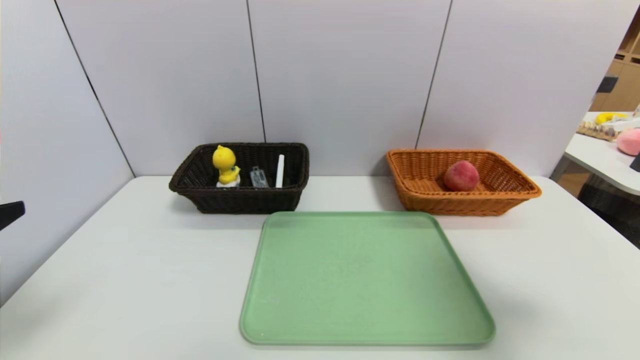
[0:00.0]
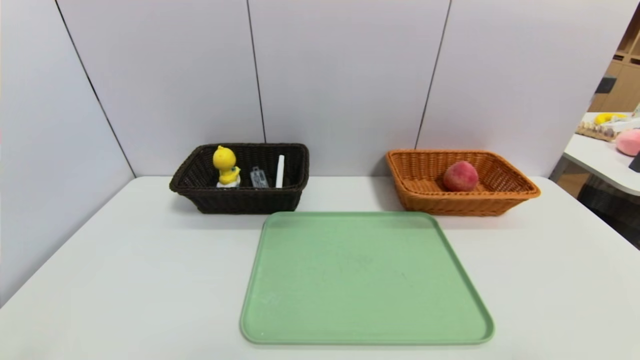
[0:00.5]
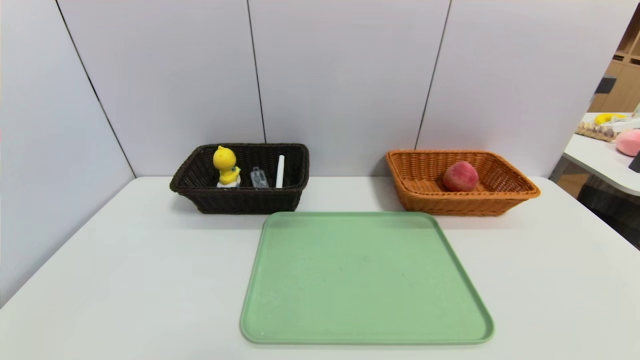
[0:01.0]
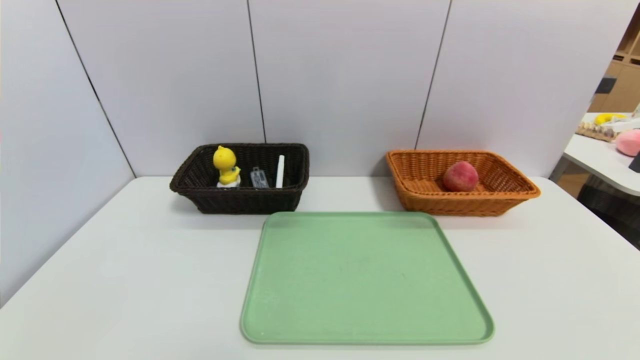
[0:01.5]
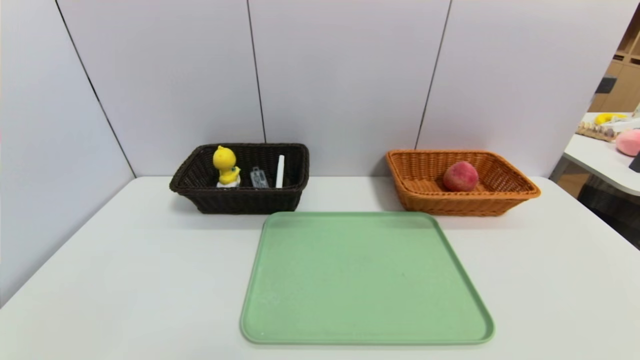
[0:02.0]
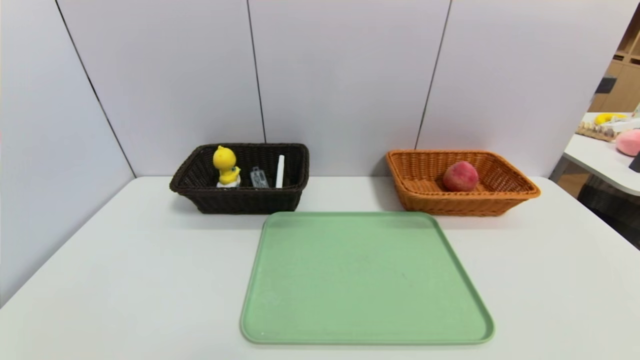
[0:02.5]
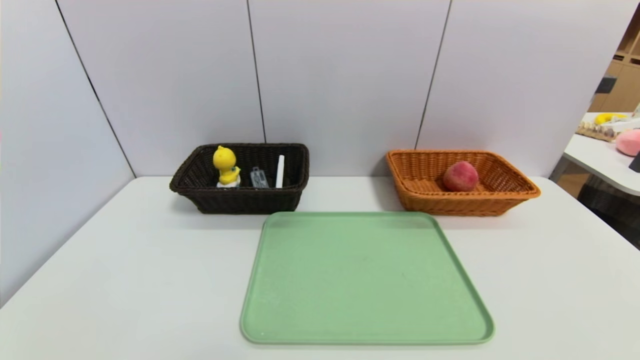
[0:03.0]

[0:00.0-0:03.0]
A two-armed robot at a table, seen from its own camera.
Task of the whole recording: place the food in the right basket with the right gripper, and place the non food items in the left basket with the left gripper.
0:00.0 to 0:01.5: The two grippers go approximately 20 cm downward and backward.

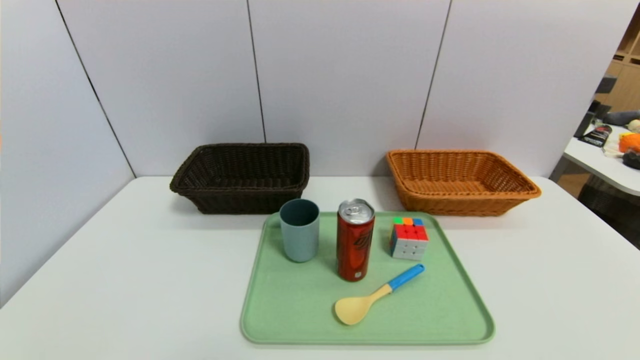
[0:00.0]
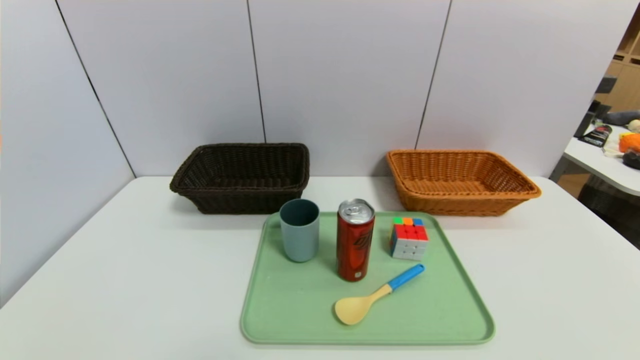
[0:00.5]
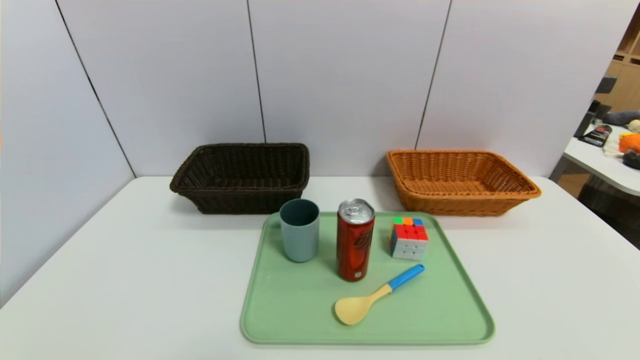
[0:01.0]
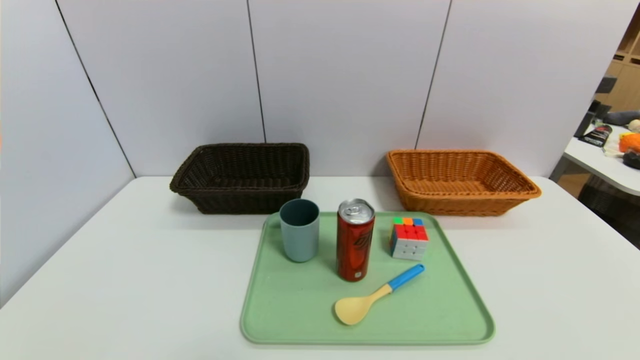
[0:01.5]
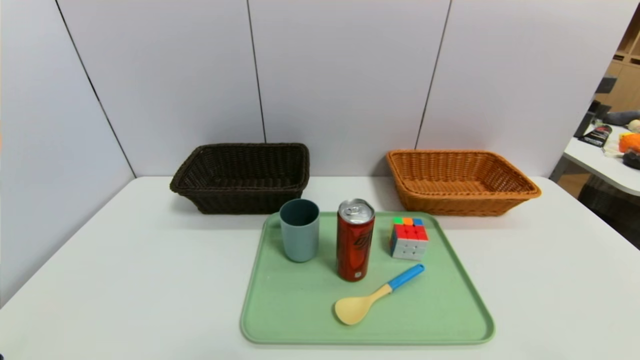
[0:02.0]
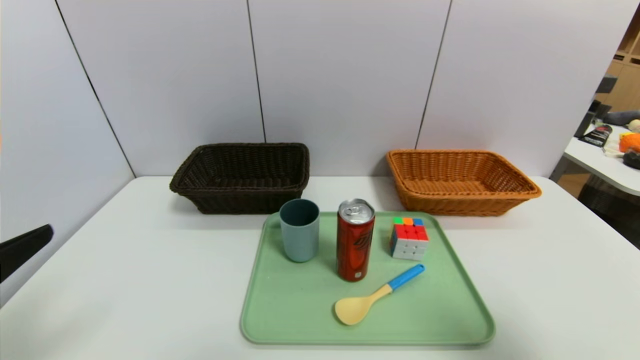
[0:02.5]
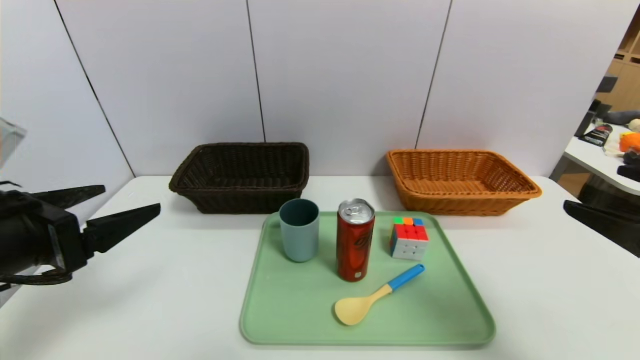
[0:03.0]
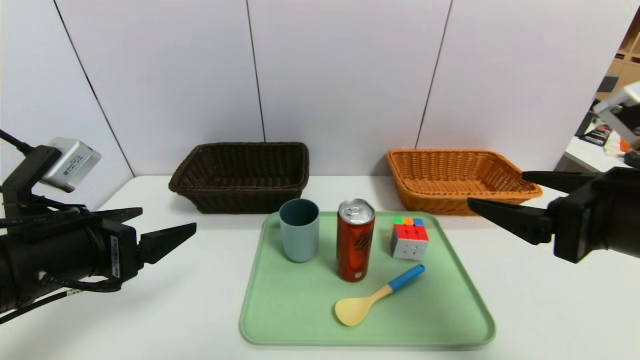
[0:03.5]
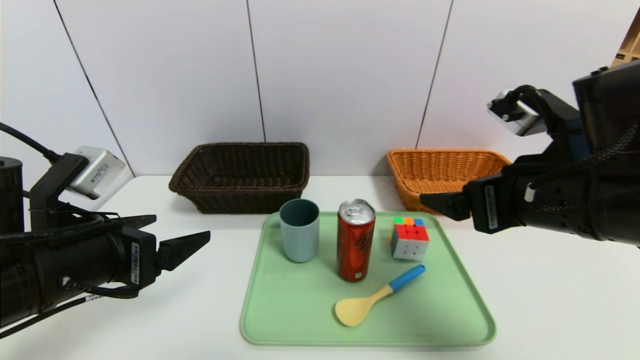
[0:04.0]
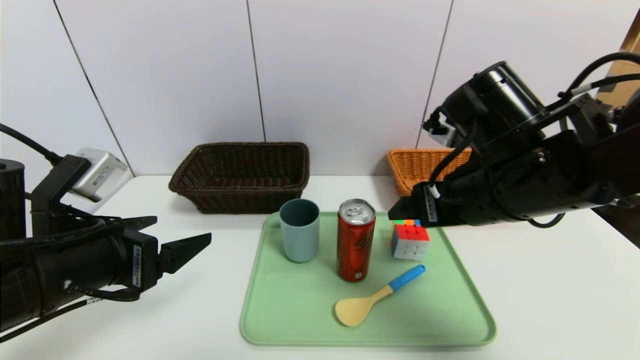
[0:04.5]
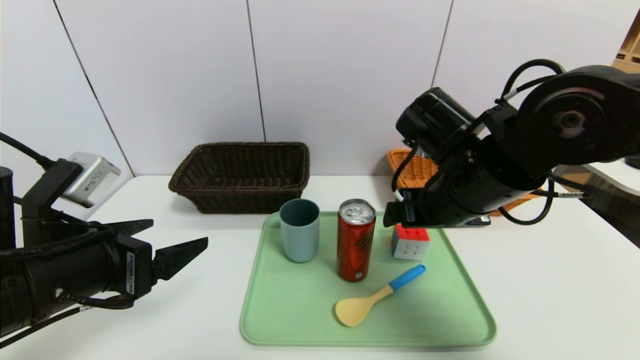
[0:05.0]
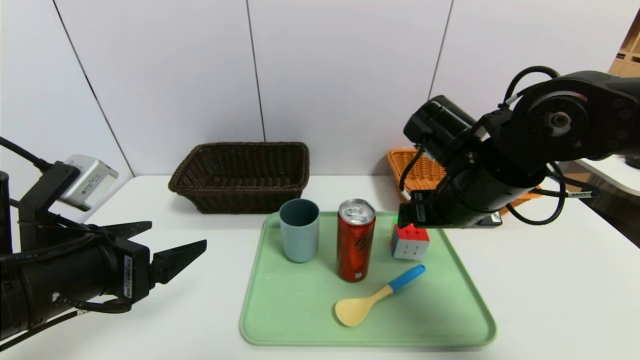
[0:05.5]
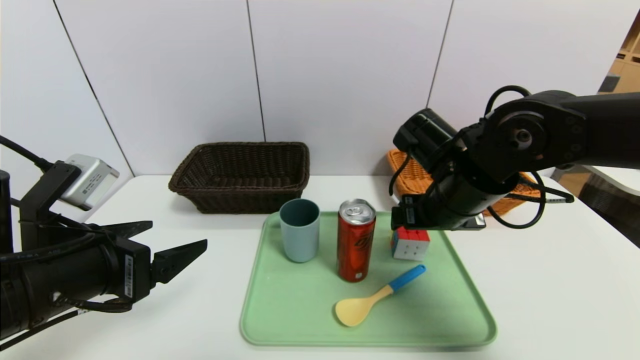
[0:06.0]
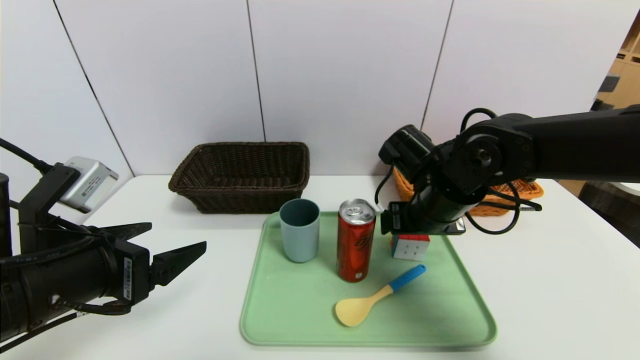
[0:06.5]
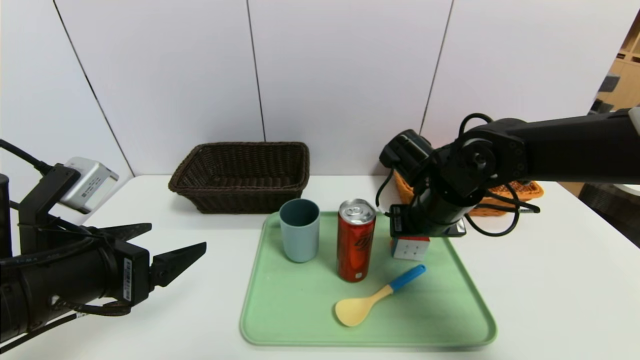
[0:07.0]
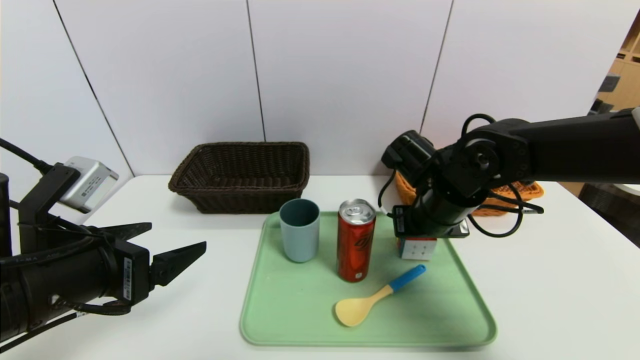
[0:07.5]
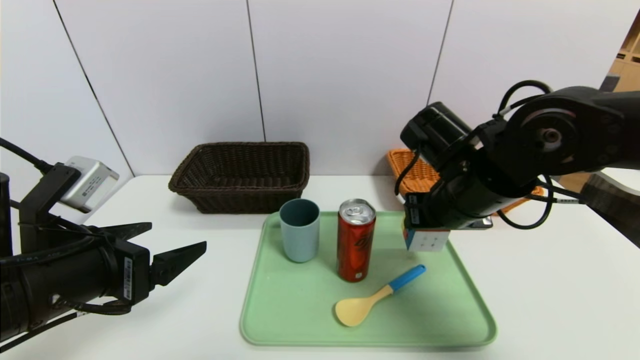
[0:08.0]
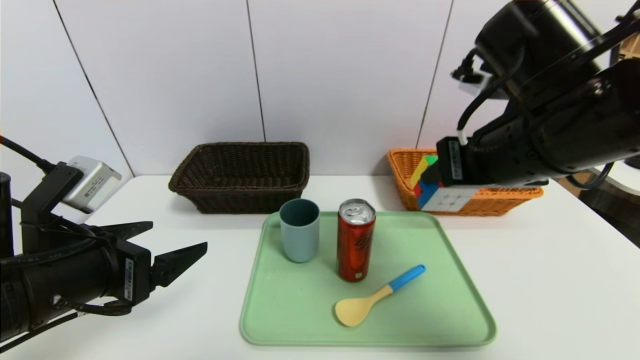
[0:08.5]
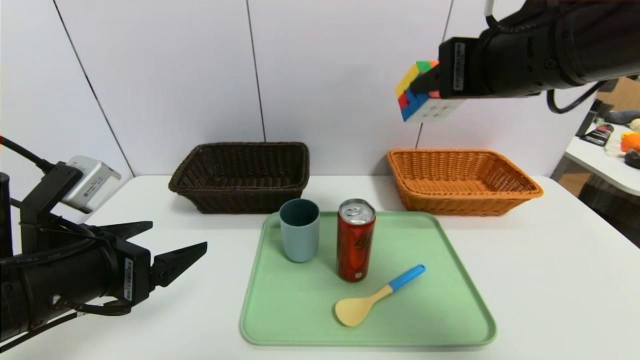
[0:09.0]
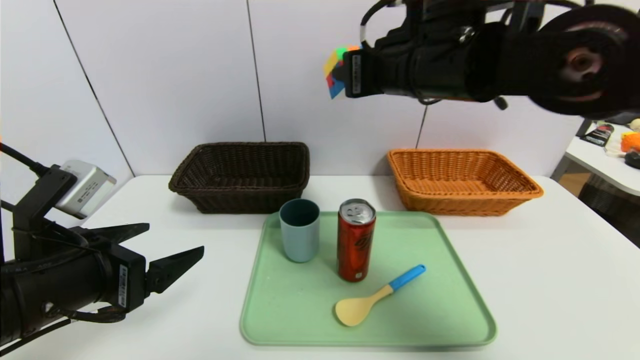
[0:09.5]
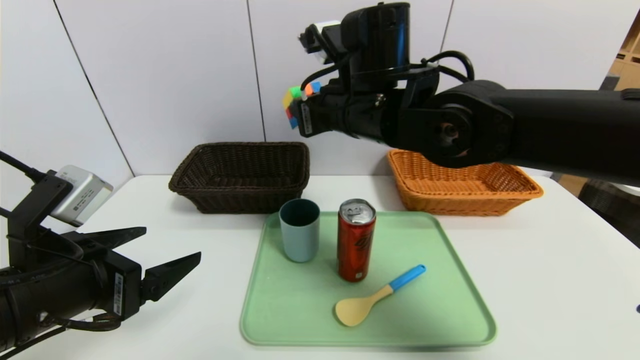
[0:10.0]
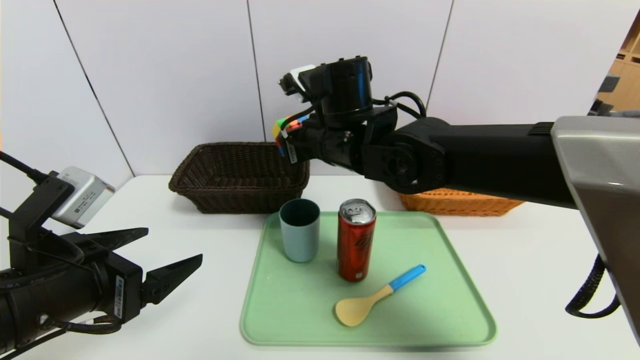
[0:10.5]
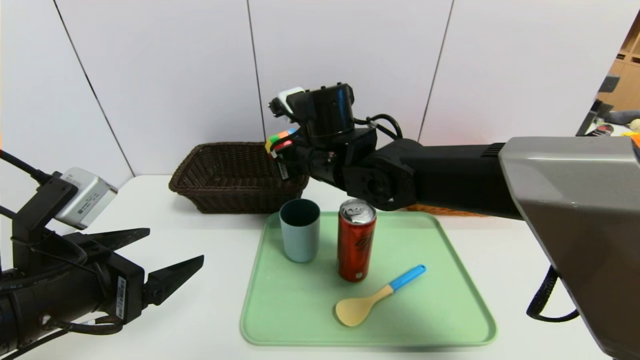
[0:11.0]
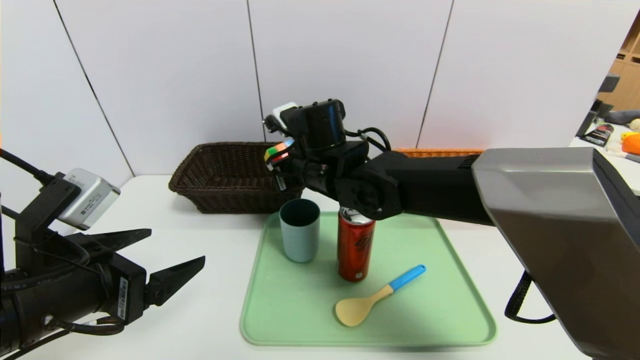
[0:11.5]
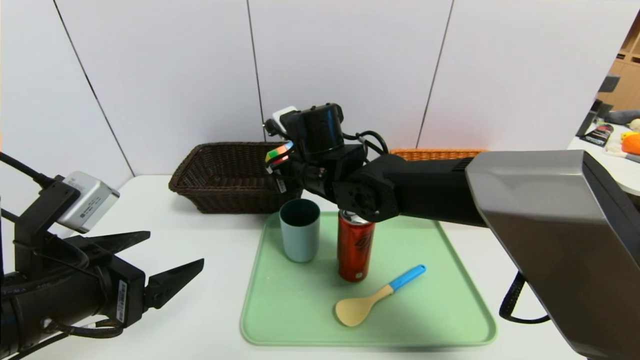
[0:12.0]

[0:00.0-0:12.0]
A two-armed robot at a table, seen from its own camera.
Task of the whole recording: place the food in the right basket with the right gripper, and place the non food items in the left basket with the left gripper.
0:02.0 to 0:04.0: The left gripper moves forward, some 20 cm, while the right gripper travels forward and to the left by about 25 cm.
0:04.0 to 0:06.0: The right gripper heads forward and downward, covering approximately 10 cm.
0:06.0 to 0:08.0: The right gripper closes.
0:08.0 to 0:10.0: The right gripper is displaced to the left and upward by about 15 cm.
0:10.0 to 0:12.0: The right gripper goes roughly 10 cm downward.

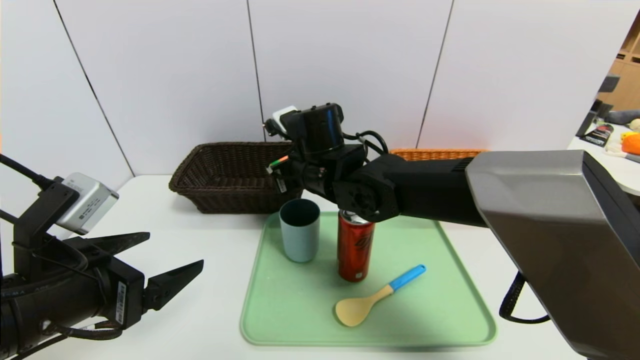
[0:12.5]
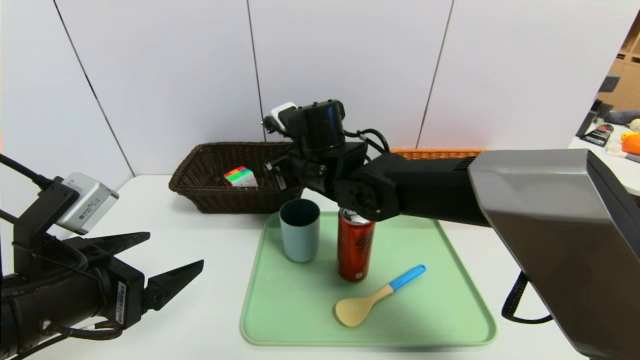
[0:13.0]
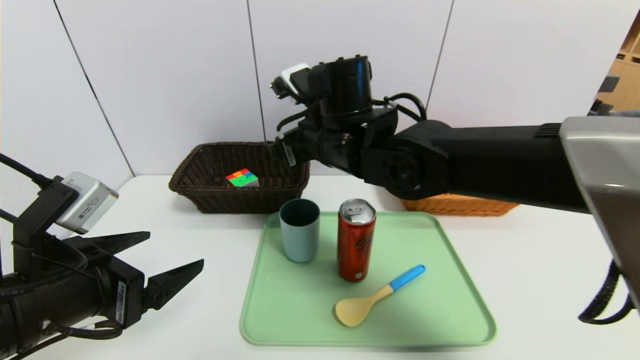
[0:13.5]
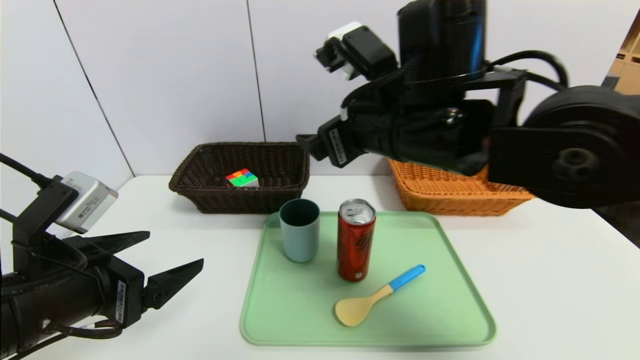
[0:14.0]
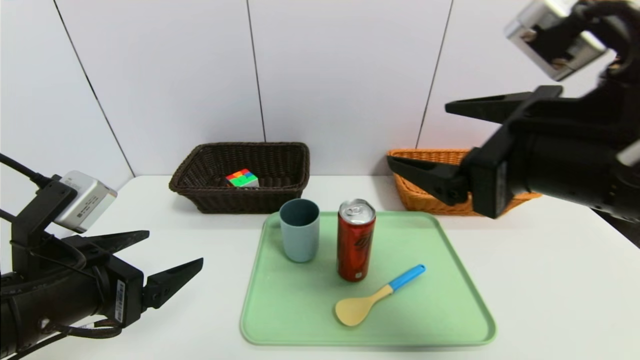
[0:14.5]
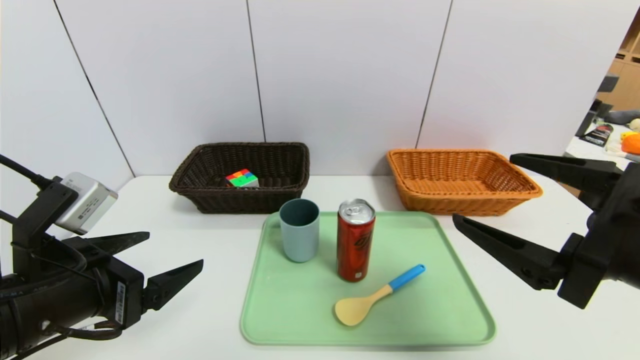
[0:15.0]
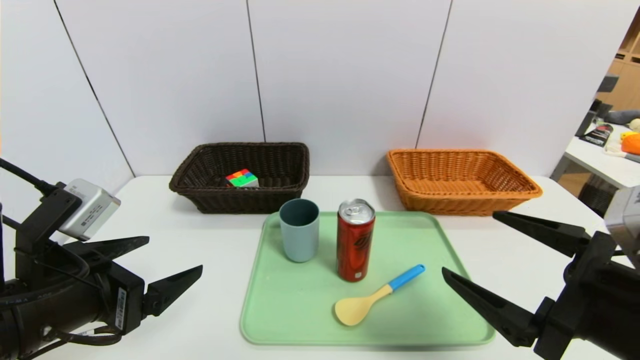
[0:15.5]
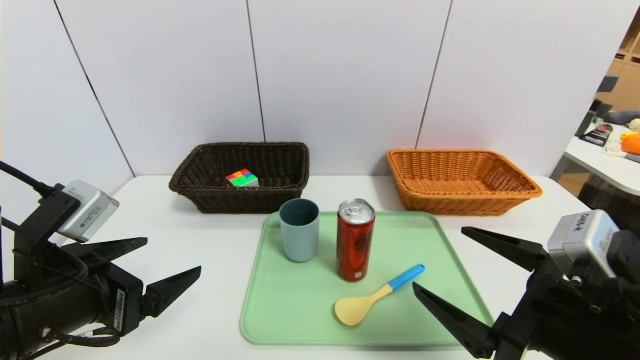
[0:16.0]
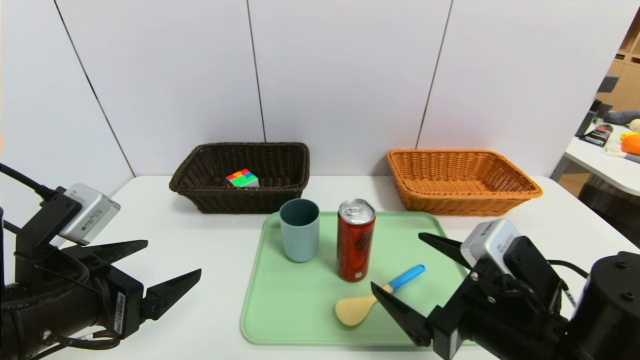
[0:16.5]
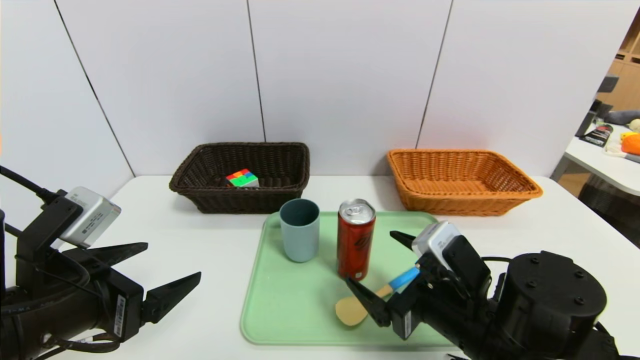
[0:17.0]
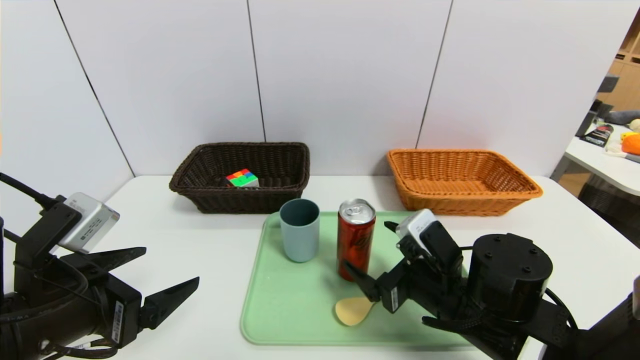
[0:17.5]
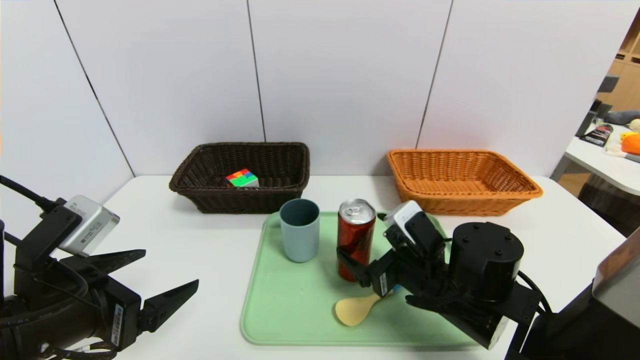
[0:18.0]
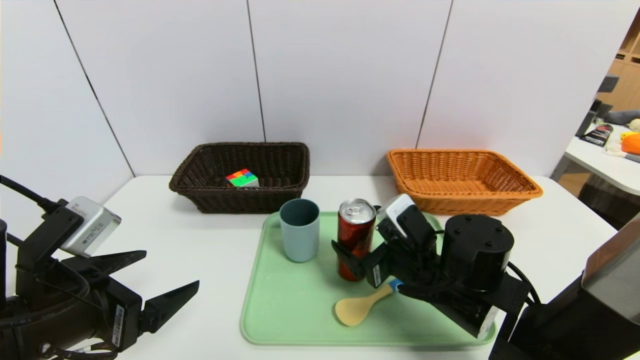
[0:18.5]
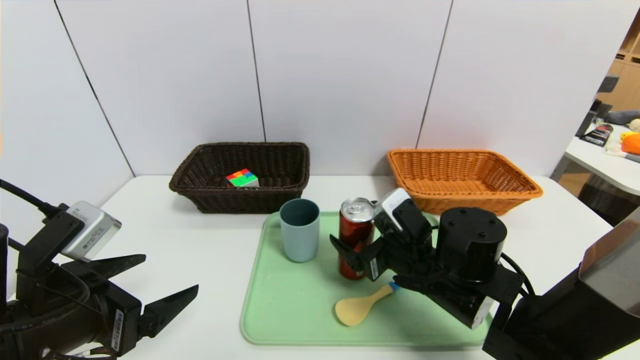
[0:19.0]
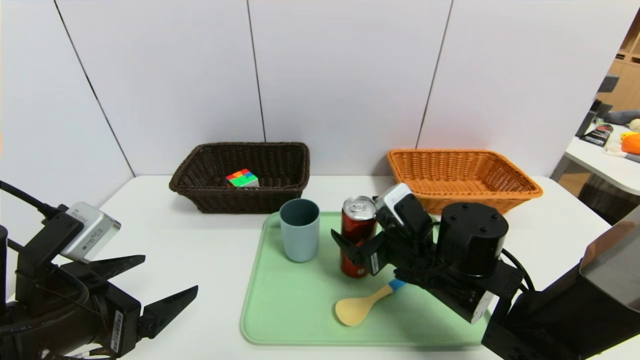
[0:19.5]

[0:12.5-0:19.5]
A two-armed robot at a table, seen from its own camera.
Task of the whole recording: place the food in the right basket with the right gripper, and place the non food items in the left basket with the left gripper.
0:12.5 to 0:14.5: The right gripper heads backward, to the right and upward, covering some 30 cm, and opens up.
0:14.5 to 0:16.0: The right gripper travels downward by roughly 15 cm.
0:16.0 to 0:17.5: The right gripper goes some 15 cm forward, downward and to the left.
0:17.5 to 0:19.5: The grippers stay close to where they were, moving slightly.
